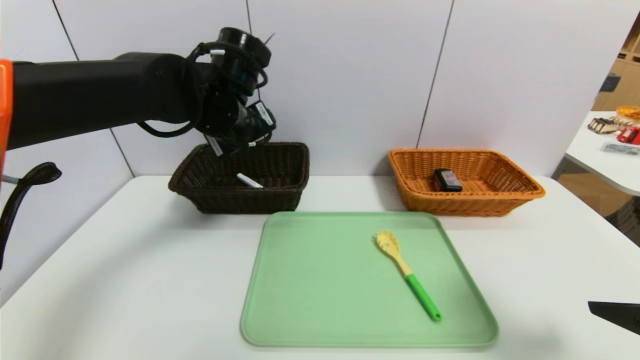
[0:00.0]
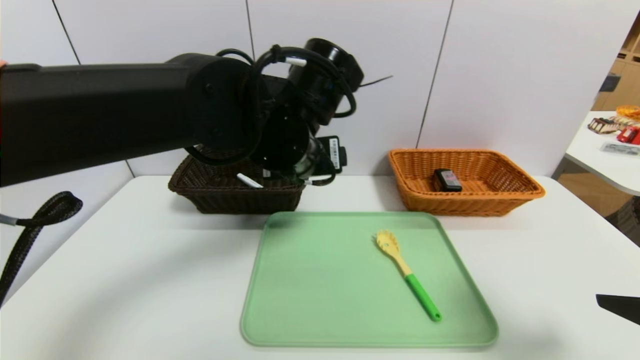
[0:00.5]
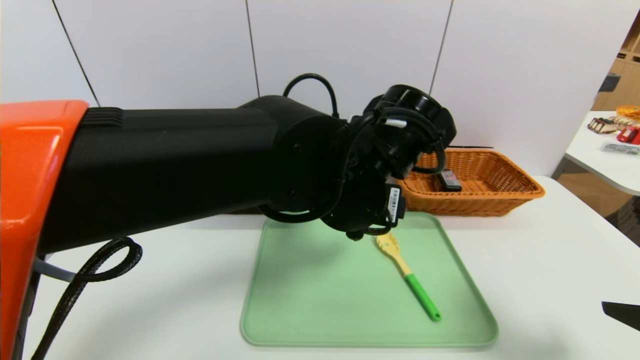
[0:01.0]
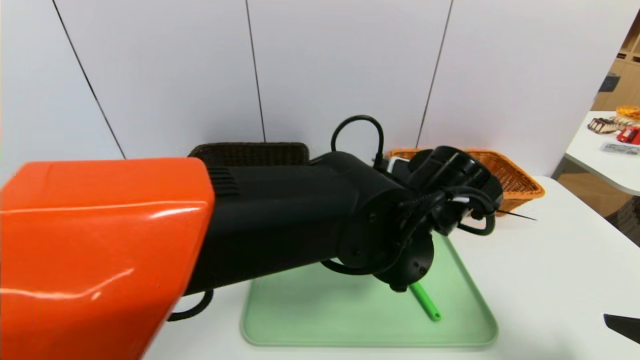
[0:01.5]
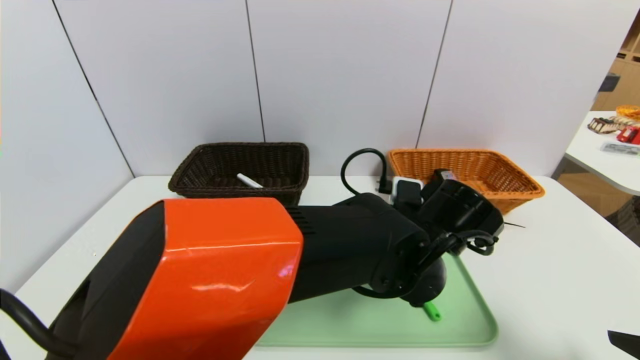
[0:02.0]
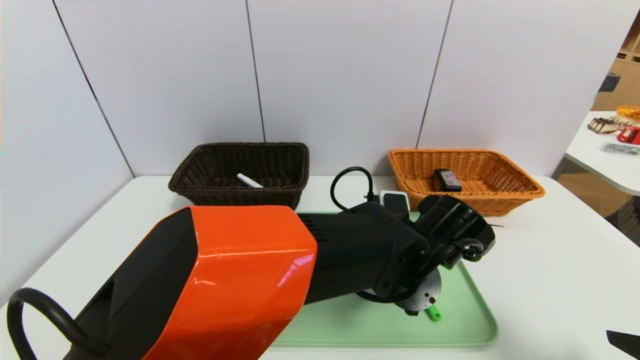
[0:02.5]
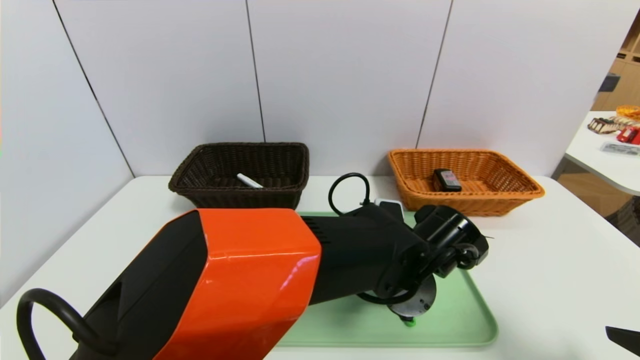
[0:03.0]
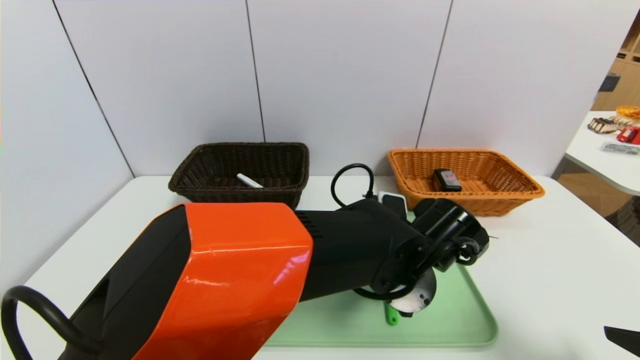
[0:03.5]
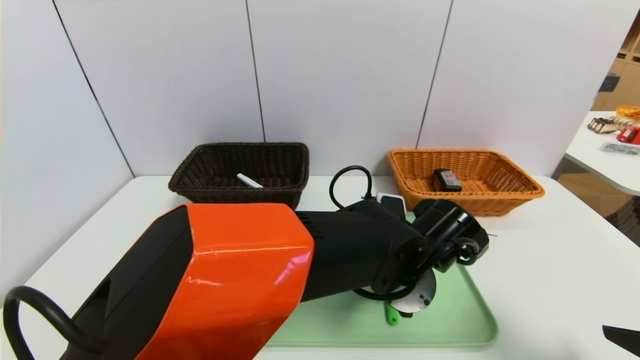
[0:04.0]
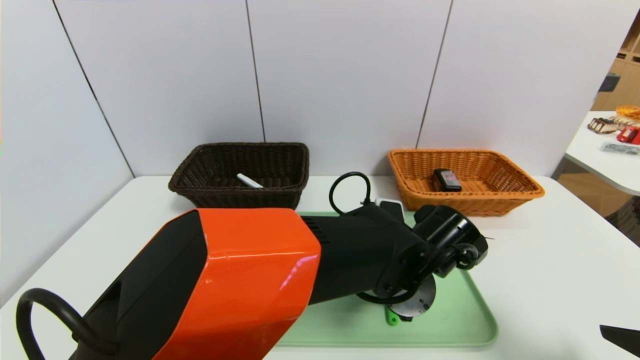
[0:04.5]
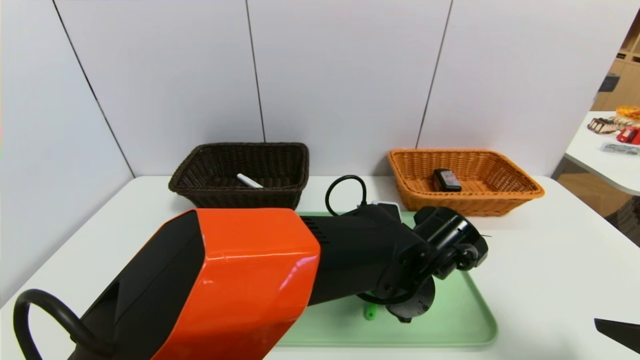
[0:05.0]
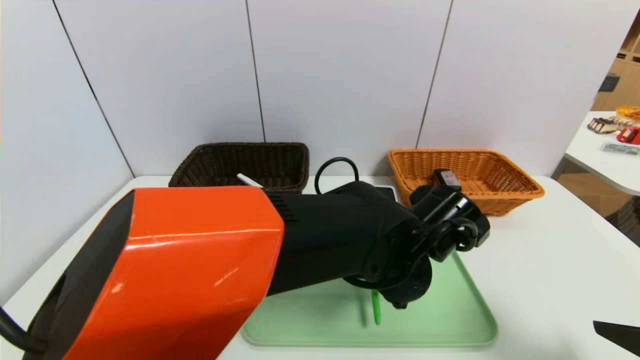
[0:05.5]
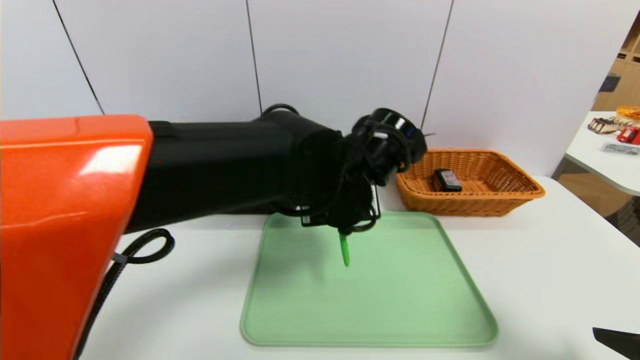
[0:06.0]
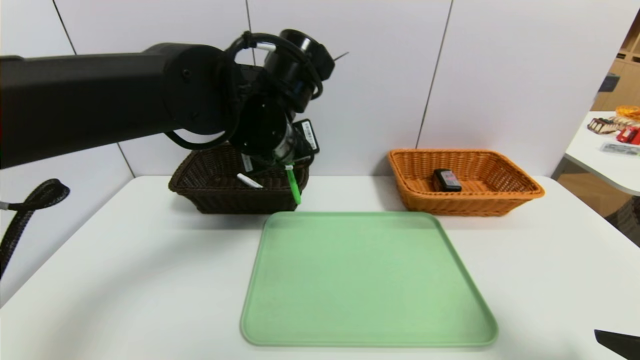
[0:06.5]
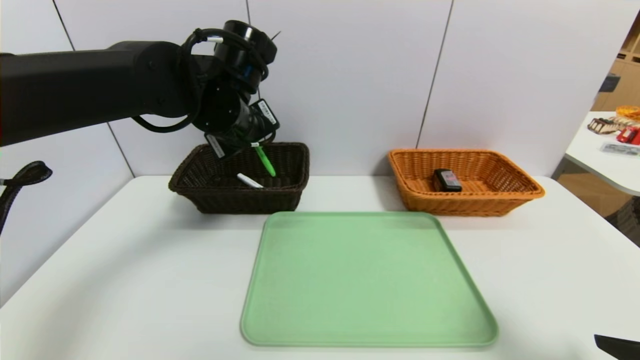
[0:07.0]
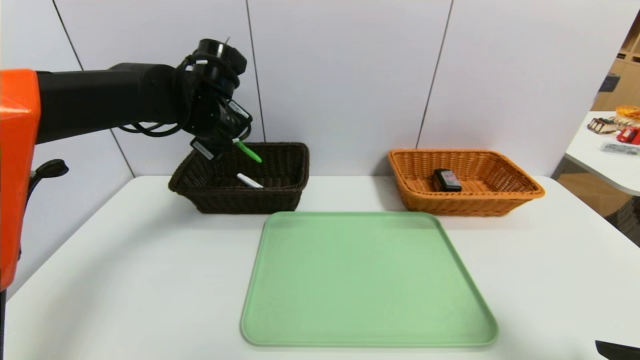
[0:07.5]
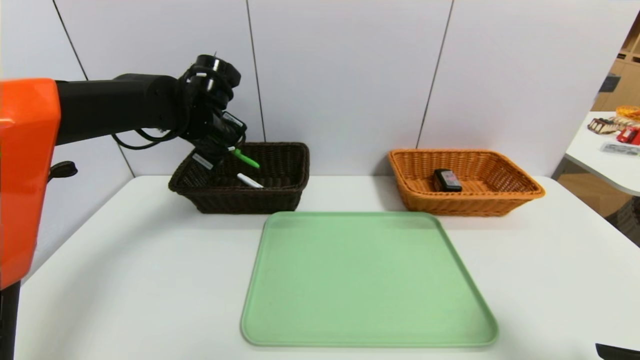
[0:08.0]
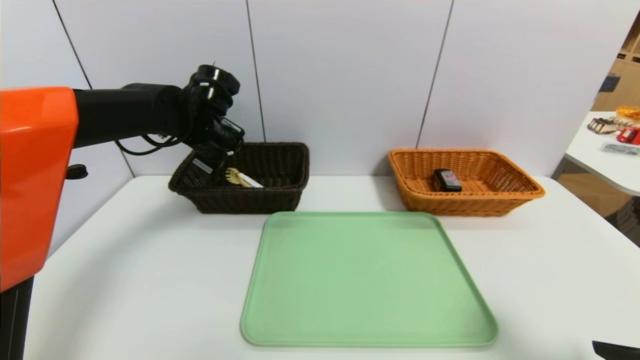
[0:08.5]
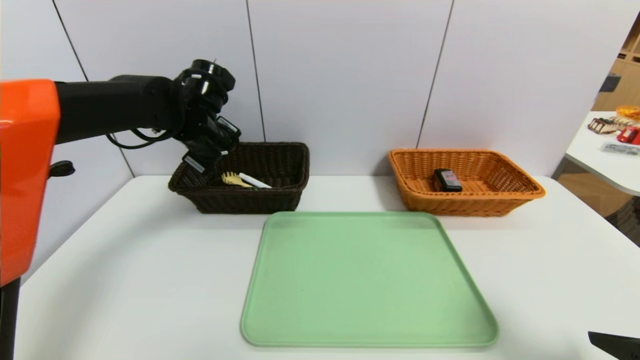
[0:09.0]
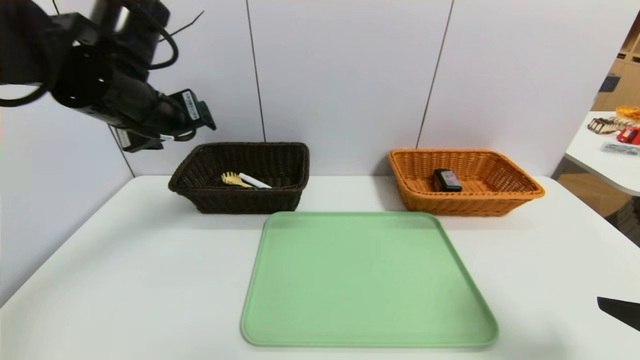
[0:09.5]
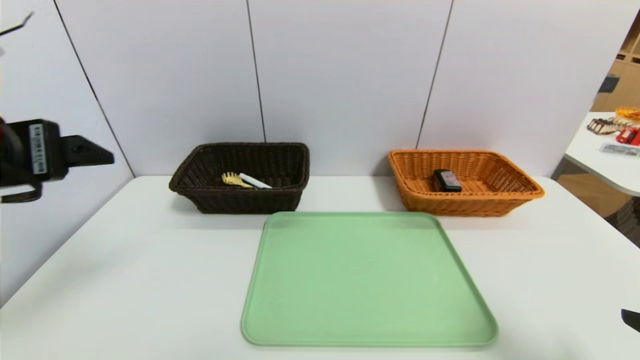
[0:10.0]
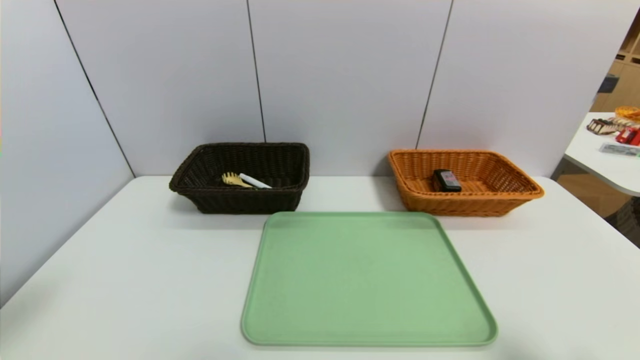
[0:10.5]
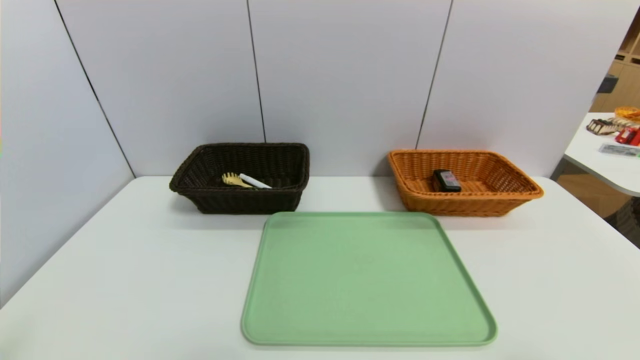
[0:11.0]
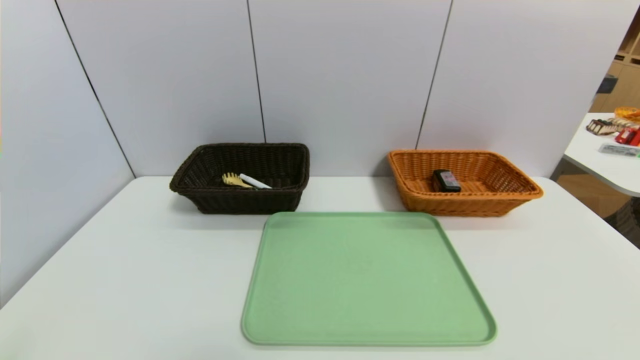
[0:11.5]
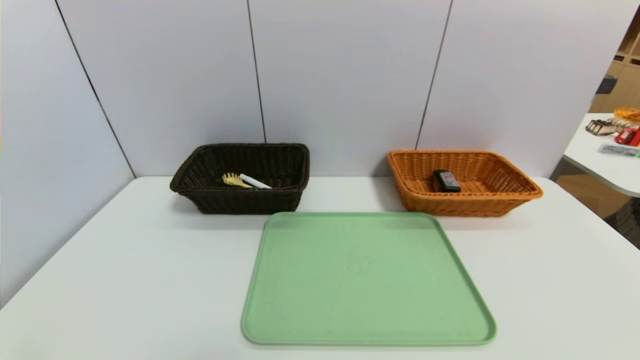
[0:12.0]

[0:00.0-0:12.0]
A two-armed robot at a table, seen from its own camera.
Task of the whole recording: place the food in the right basket with the right gripper, and place the non food items in the left basket with the left gripper.
Step, 0:00.0 to 0:08.5: Grasp the back scratcher and put it in the left basket.
0:00.0 to 0:02.0: The left gripper travels to the right, downward and backward by roughly 25 cm.
0:02.0 to 0:04.0: There are only small adjustments of the grippers.
0:04.0 to 0:06.0: The left gripper is displaced upward and to the left by roughly 10 cm, and closes.
0:06.0 to 0:08.0: The left gripper heads to the left and forward, covering some 25 cm.
0:08.0 to 0:10.0: The left gripper shifts about 25 cm backward, and opens its fingers.
0:10.0 to 0:12.0: The right gripper travels backward by approximately 10 cm. The left gripper is displaced backward and downward by some 25 cm.

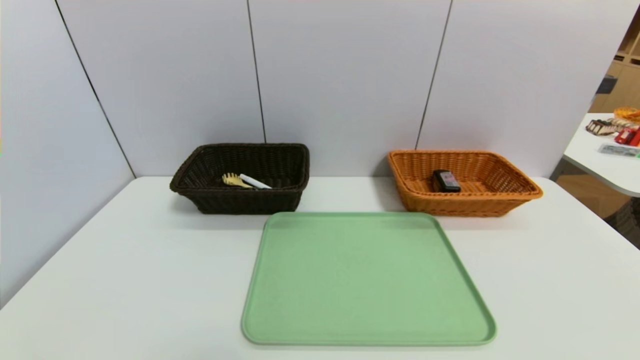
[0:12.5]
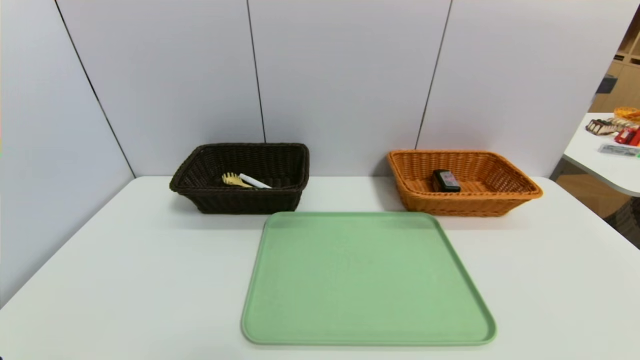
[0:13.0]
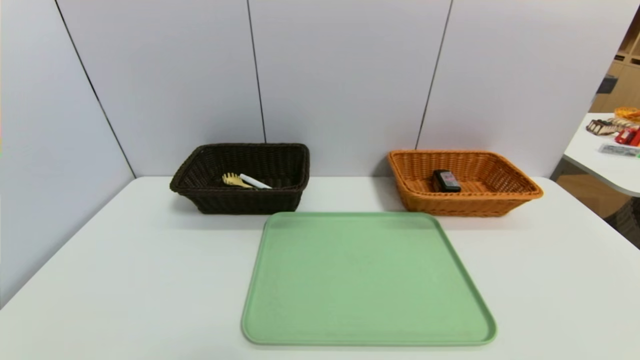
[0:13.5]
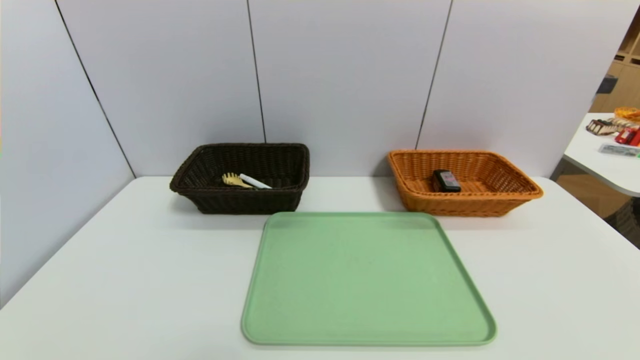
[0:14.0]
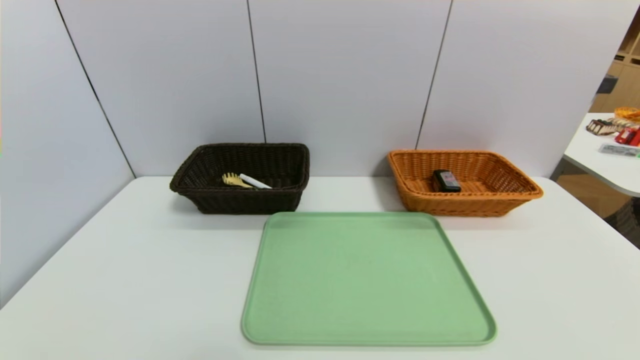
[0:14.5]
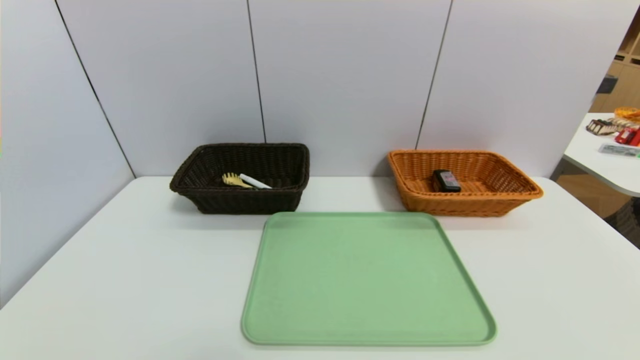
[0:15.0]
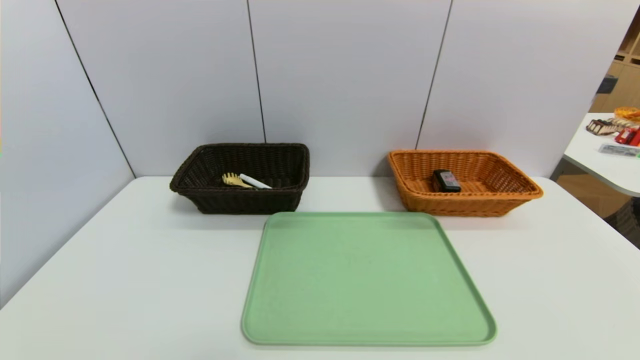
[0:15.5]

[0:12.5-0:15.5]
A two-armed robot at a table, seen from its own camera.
Task of the whole recording: place the food in the right basket with the right gripper, and place the non food items in the left basket with the left gripper.
0:14.0 to 0:15.5: Both grippers stay about where they are.

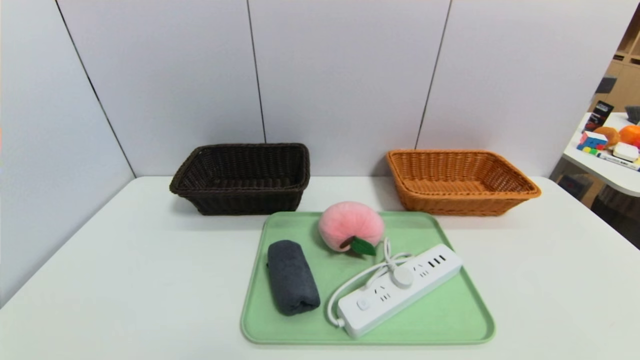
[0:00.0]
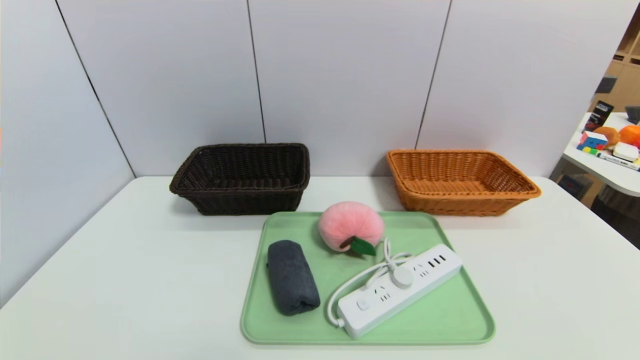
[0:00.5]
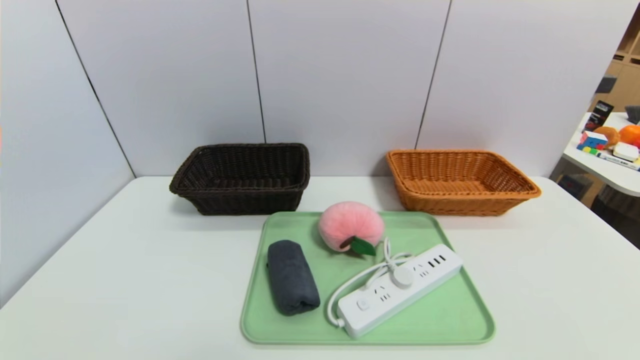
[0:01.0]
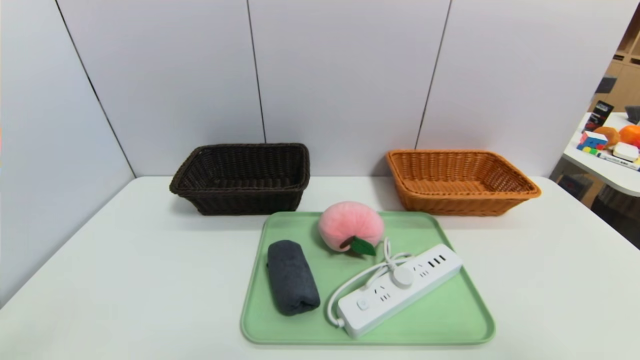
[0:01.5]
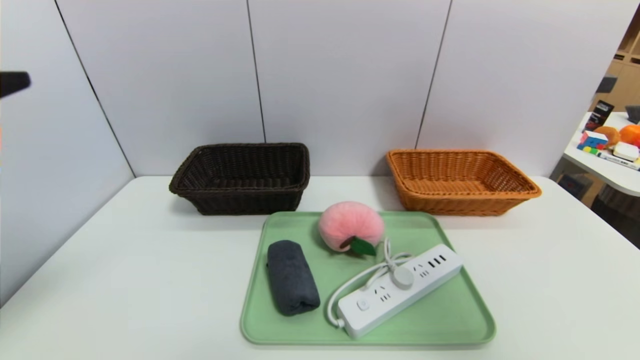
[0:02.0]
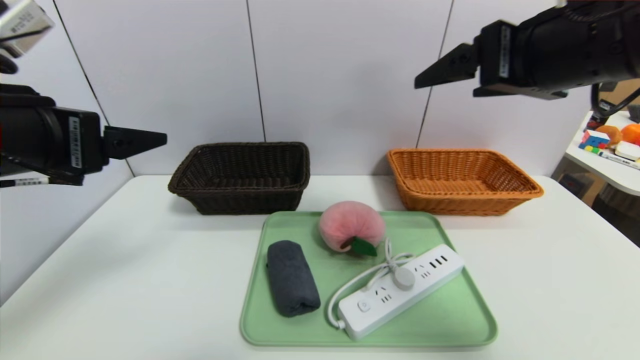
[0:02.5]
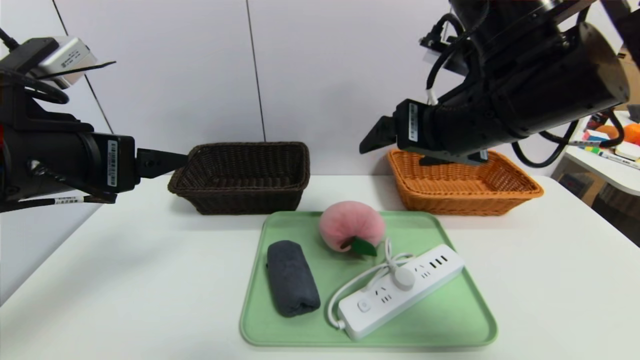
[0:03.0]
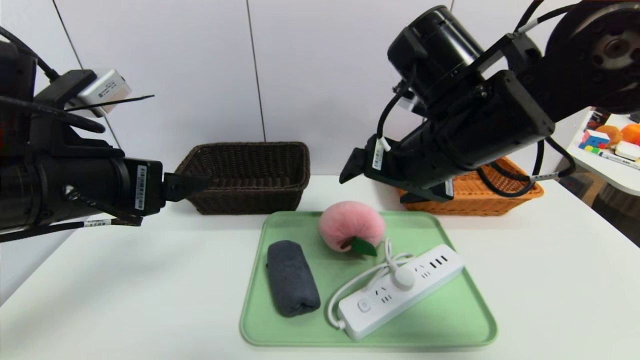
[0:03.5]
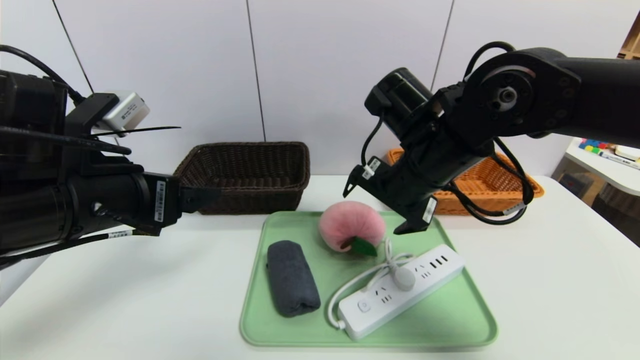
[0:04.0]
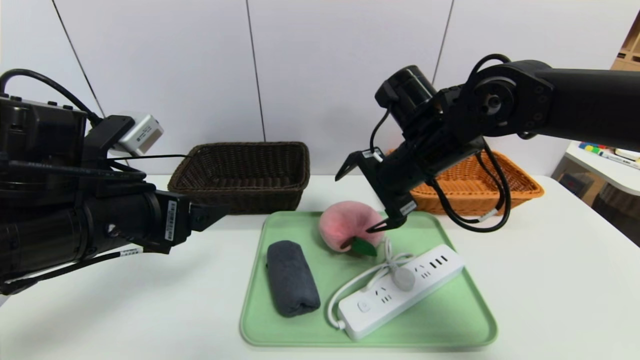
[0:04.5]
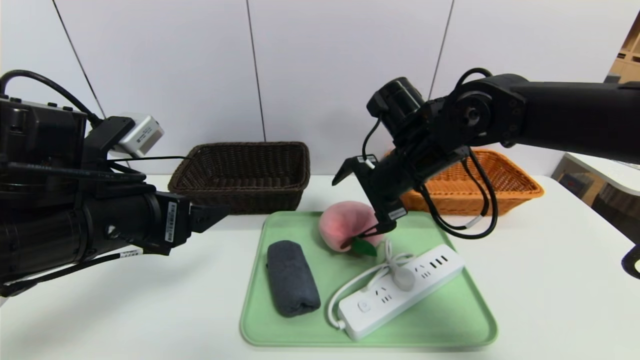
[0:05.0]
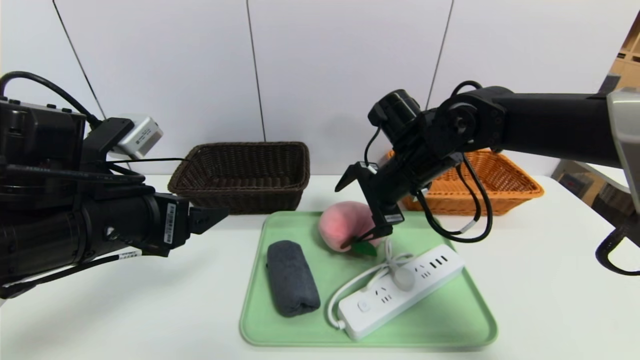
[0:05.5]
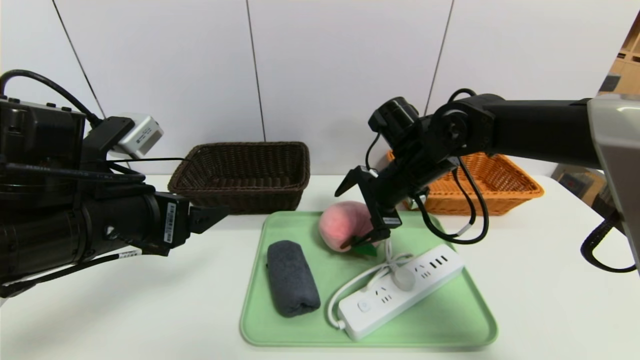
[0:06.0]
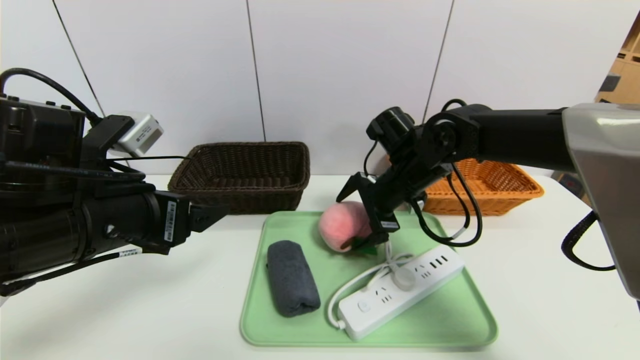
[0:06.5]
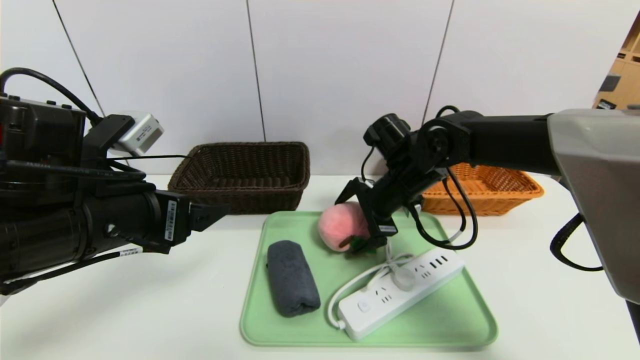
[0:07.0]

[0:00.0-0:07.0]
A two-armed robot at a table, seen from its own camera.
Task of the whole recording: place the food in the right basket with the right gripper, and place the non food items in the left basket with the left gripper.
0:00.0 to 0:02.0: The right gripper moves upward, roughly 35 cm. The left gripper moves upward and forward, roughly 30 cm.
0:02.0 to 0:03.5: The right gripper shifts approximately 30 cm to the left, forward and downward, while the left gripper is displaced forward, to the right and downward by about 15 cm.
0:03.5 to 0:05.0: The right gripper travels forward and downward by approximately 10 cm.
0:05.0 to 0:07.0: The right gripper moves downward, approximately 5 cm.
